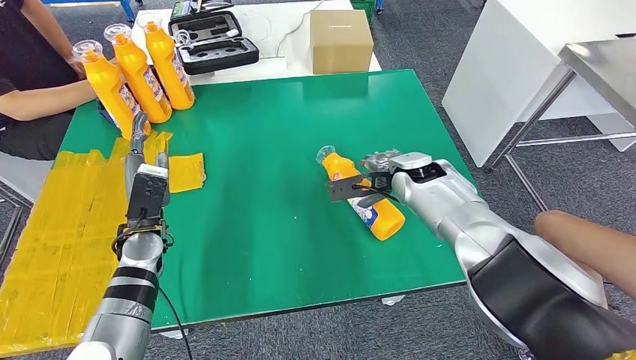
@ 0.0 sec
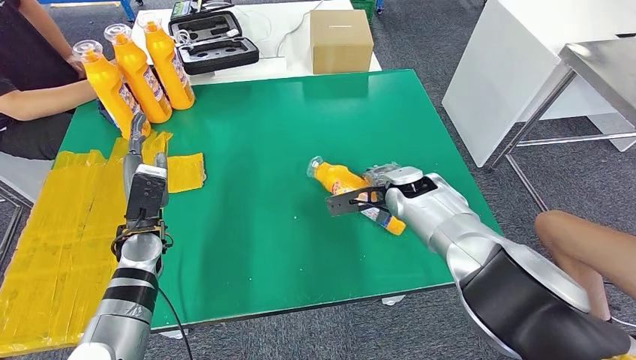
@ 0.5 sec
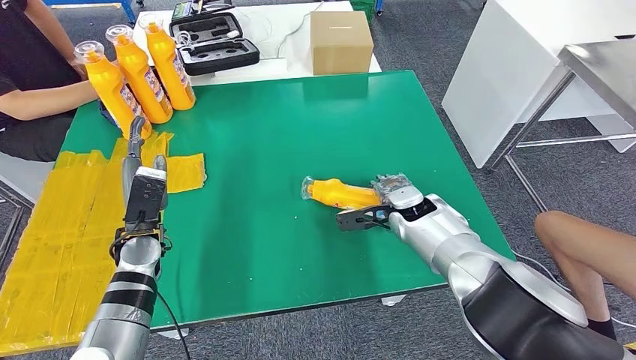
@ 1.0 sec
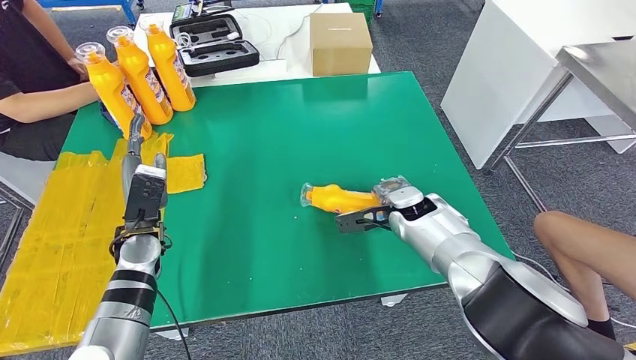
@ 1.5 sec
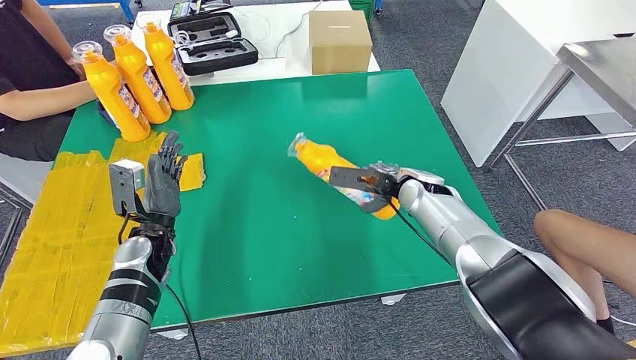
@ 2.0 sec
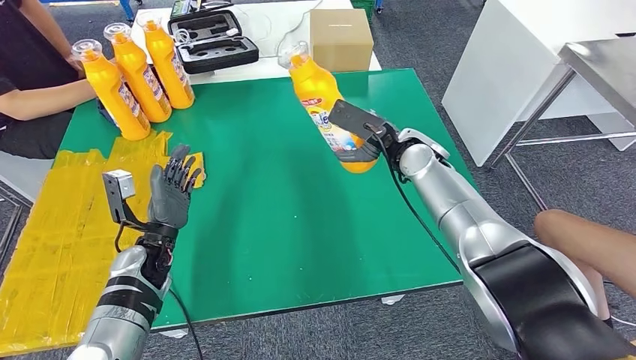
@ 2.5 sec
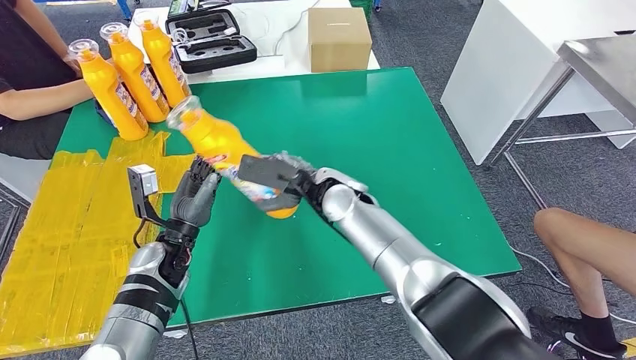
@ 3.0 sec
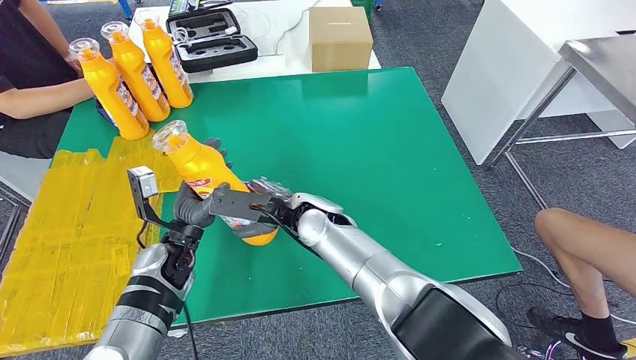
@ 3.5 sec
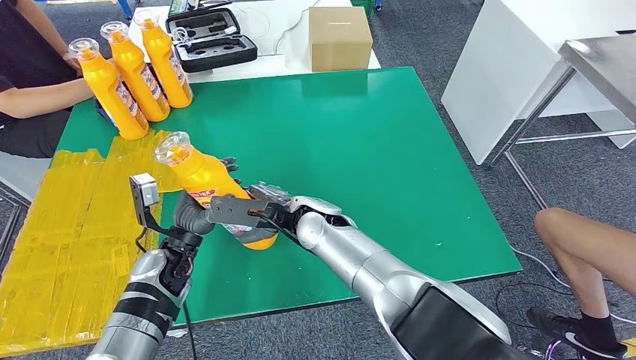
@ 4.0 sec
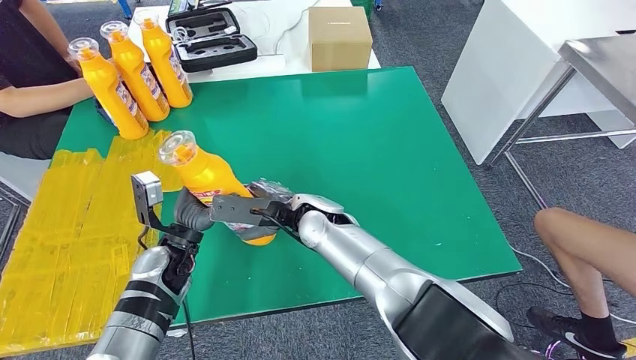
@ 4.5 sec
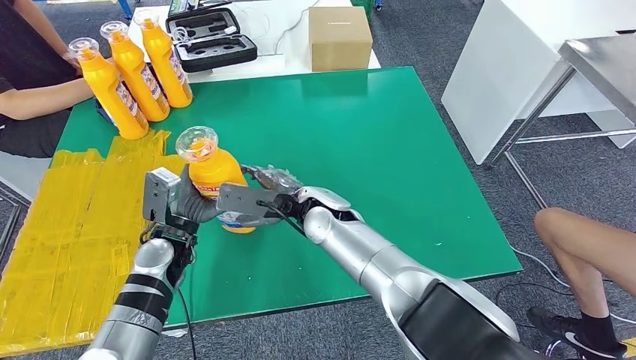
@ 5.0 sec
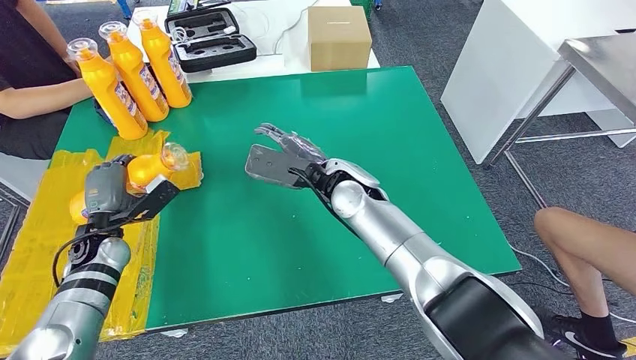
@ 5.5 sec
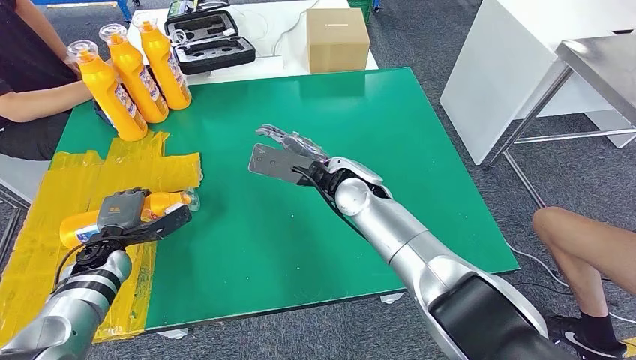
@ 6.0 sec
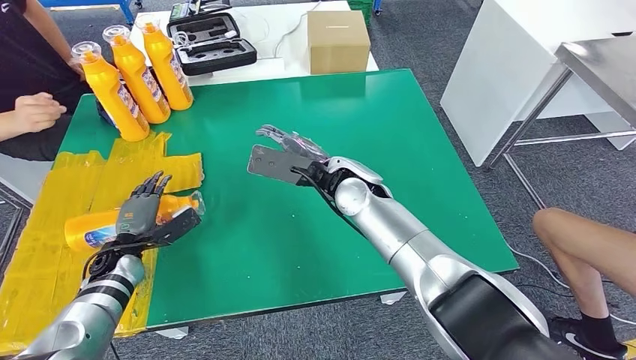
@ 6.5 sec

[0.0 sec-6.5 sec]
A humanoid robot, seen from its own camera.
Step, 0.0 sec to 2.5 sec: Pick up the bottle from the table.
Step, 3.0 sec to 6.5 sec: Flip the bottle to face forward.
